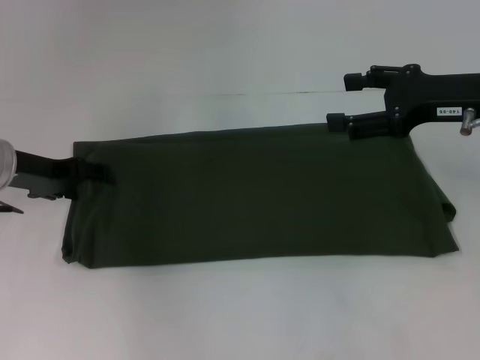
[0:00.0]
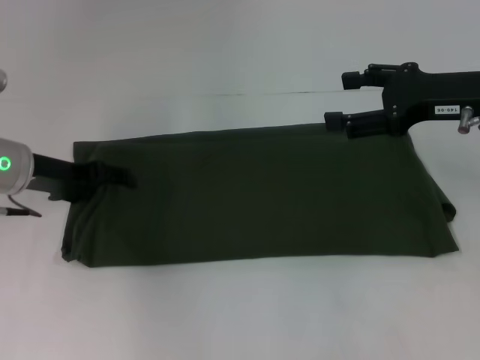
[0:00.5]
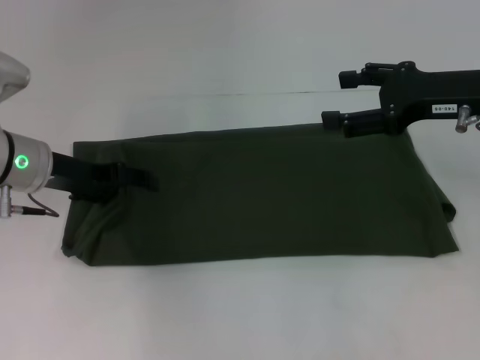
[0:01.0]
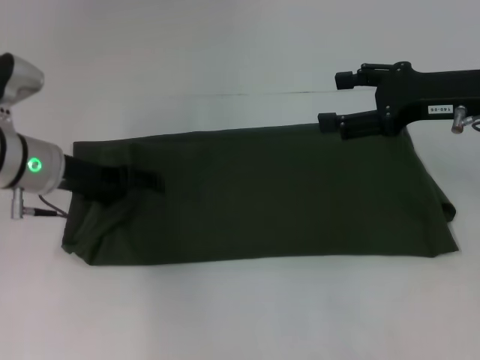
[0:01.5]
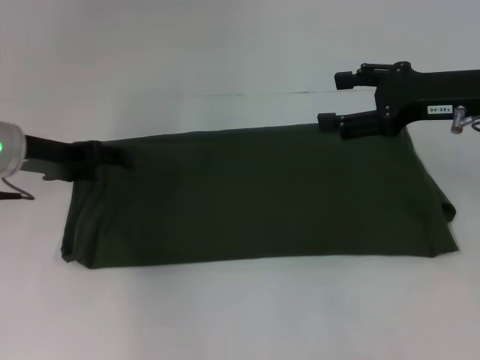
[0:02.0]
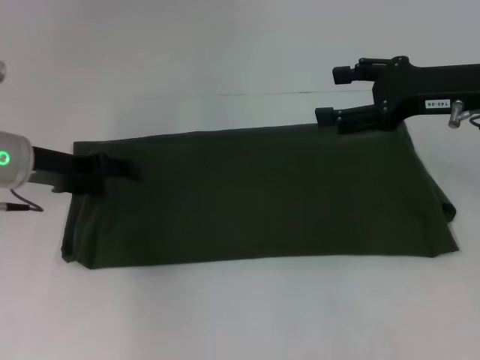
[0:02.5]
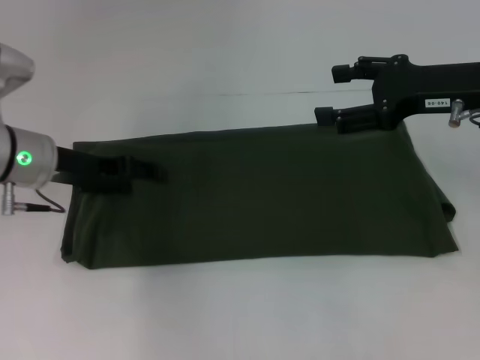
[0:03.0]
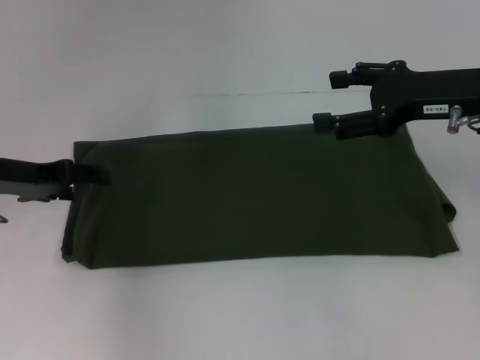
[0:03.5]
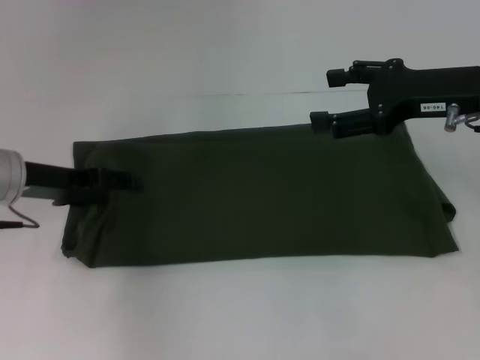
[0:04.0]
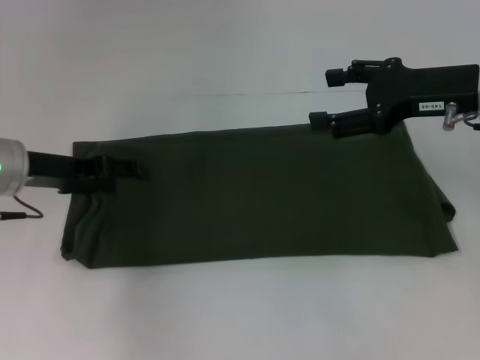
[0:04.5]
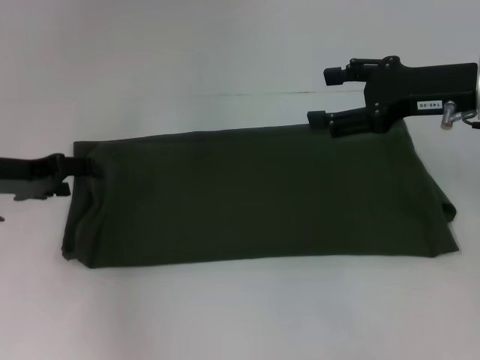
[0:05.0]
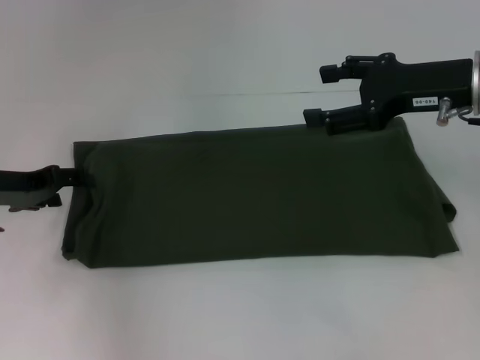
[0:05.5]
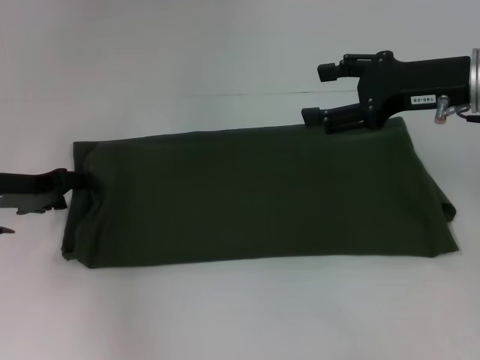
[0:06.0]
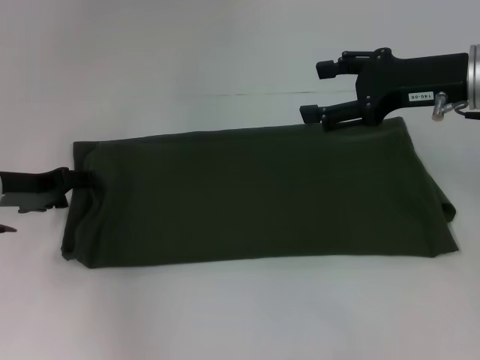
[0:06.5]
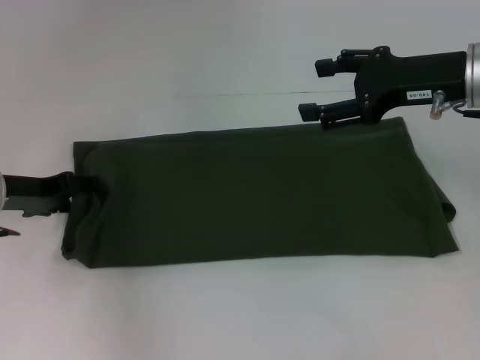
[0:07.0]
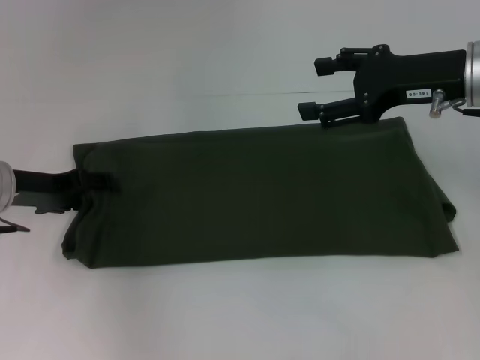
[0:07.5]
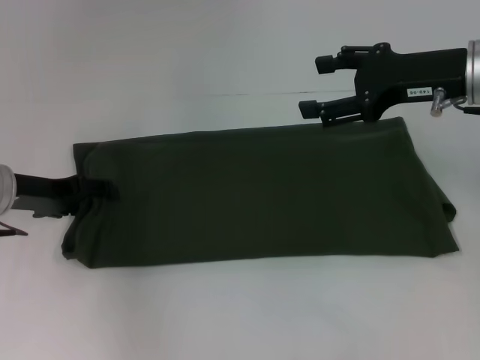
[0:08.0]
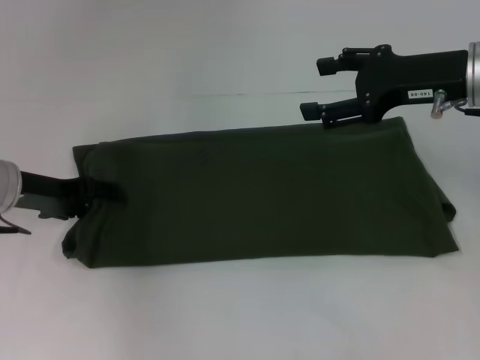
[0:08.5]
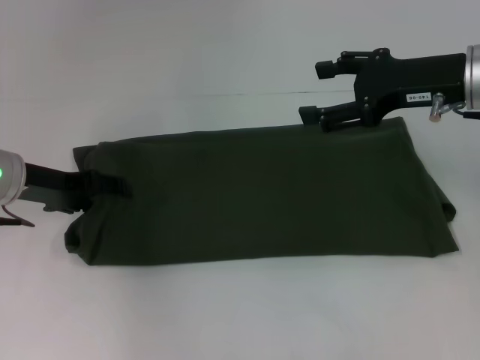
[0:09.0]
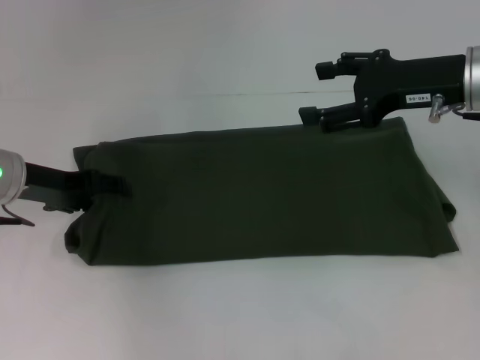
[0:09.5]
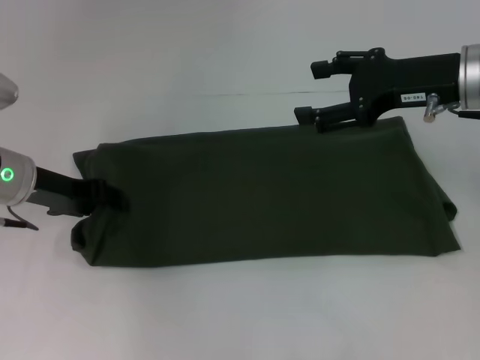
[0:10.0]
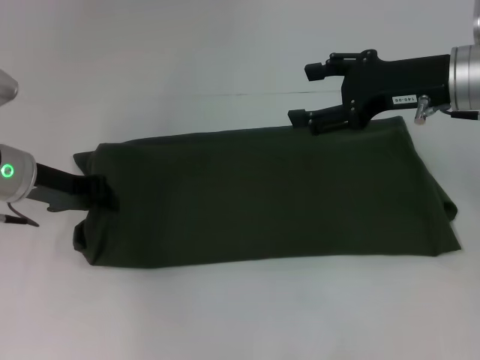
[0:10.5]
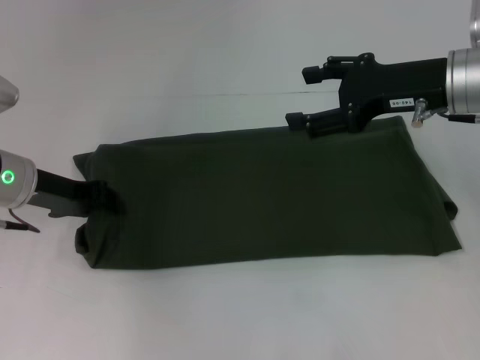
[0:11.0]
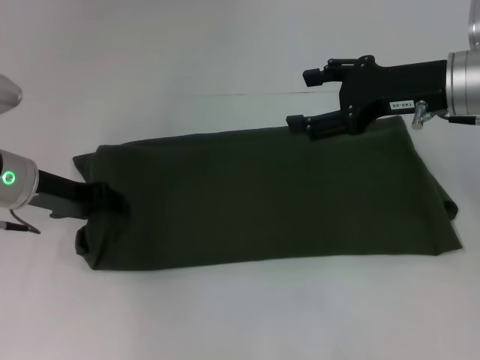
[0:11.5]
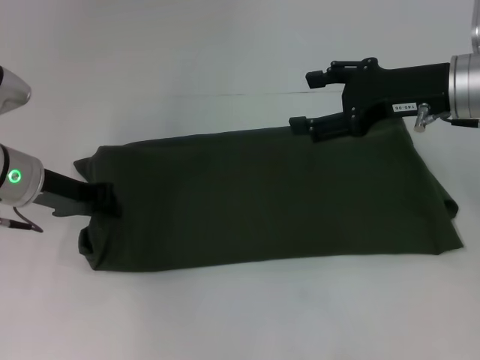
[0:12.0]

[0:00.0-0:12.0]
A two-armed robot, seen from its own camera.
0:00.0 to 0:10.0: The grippers make only small movements.
0:10.0 to 0:12.0: The left gripper closes up.

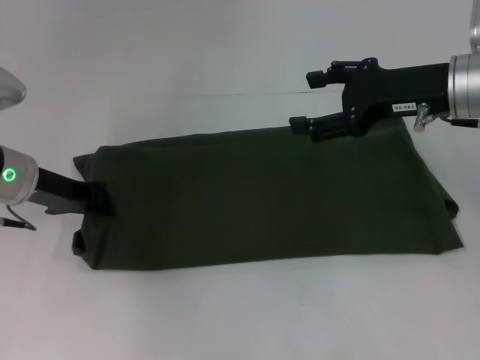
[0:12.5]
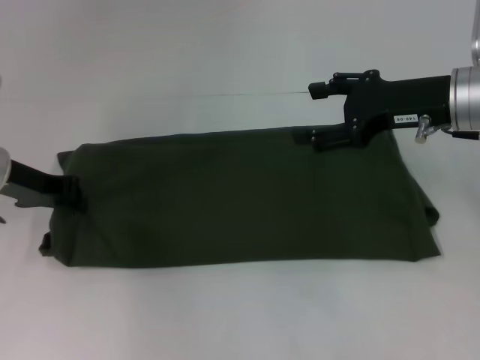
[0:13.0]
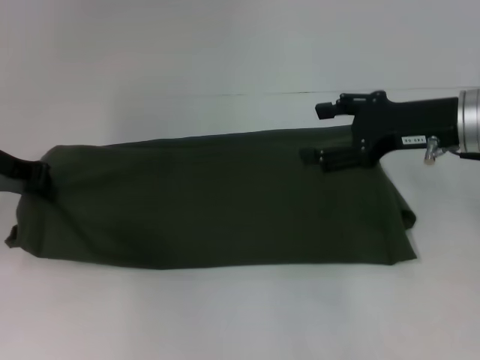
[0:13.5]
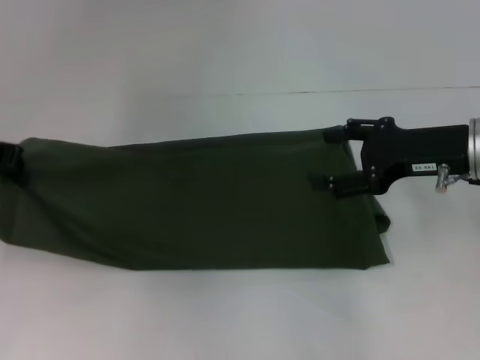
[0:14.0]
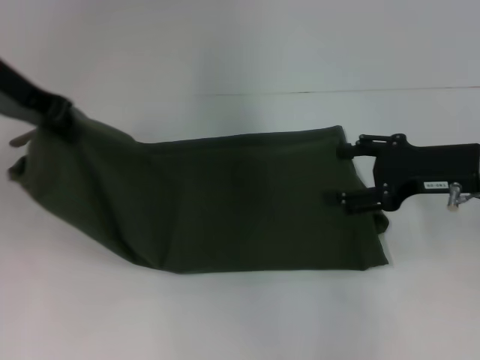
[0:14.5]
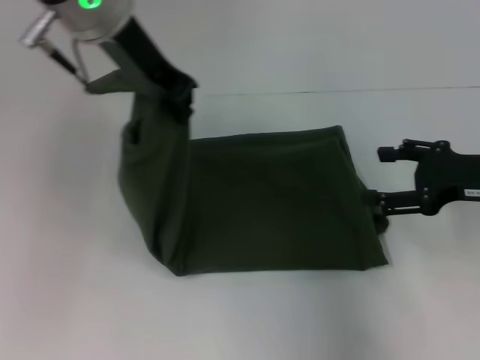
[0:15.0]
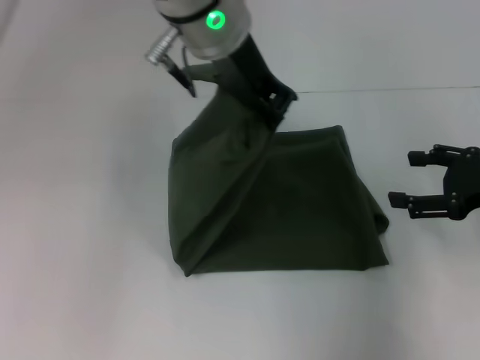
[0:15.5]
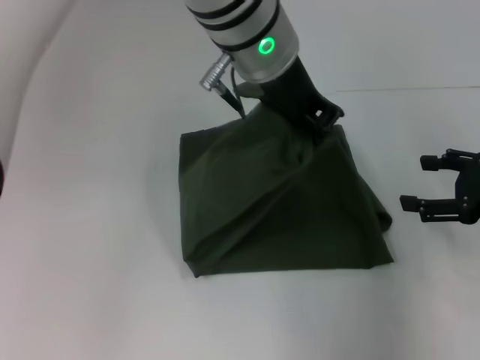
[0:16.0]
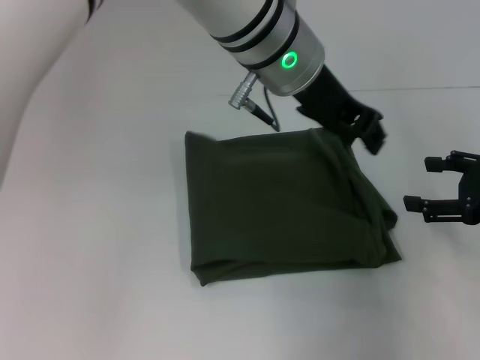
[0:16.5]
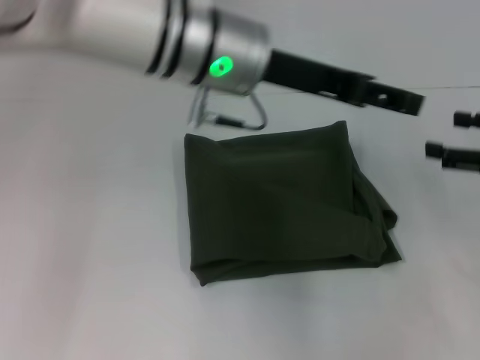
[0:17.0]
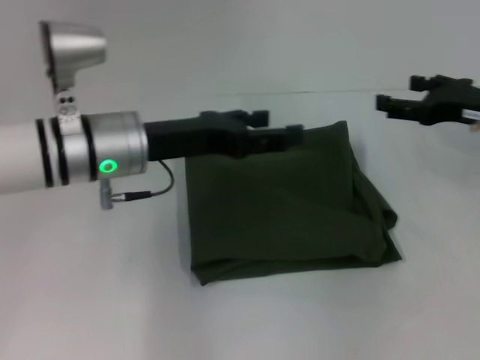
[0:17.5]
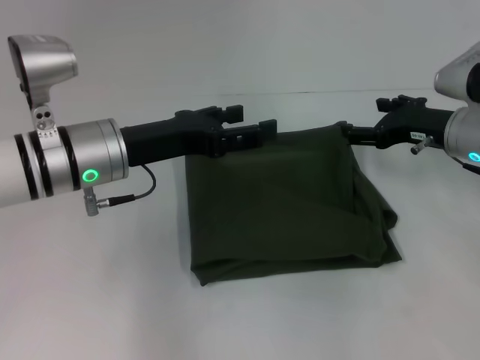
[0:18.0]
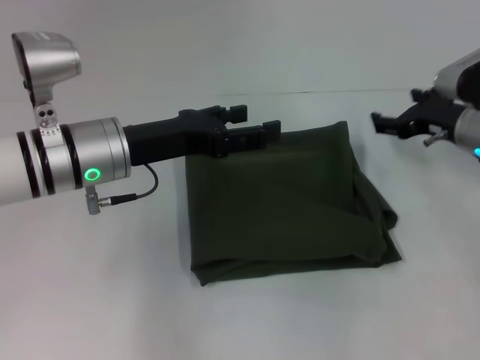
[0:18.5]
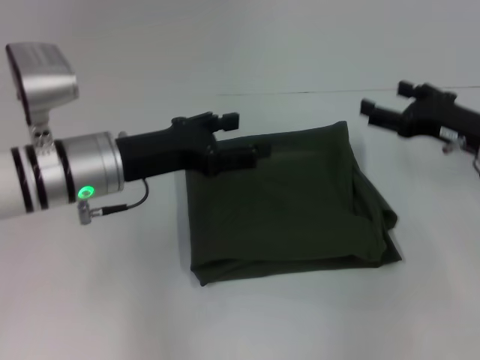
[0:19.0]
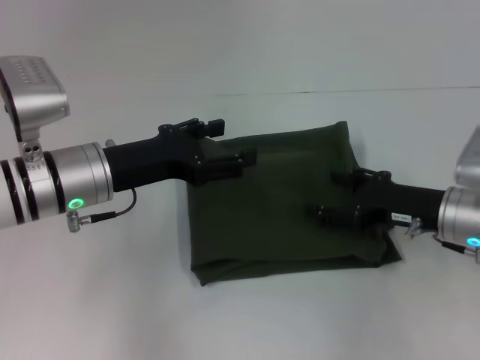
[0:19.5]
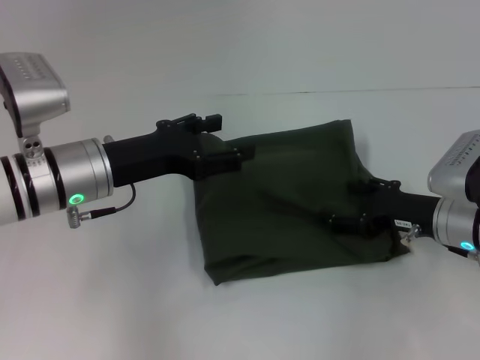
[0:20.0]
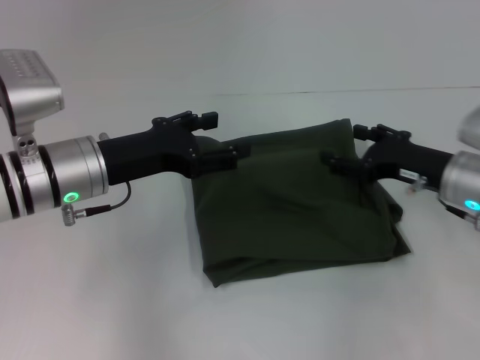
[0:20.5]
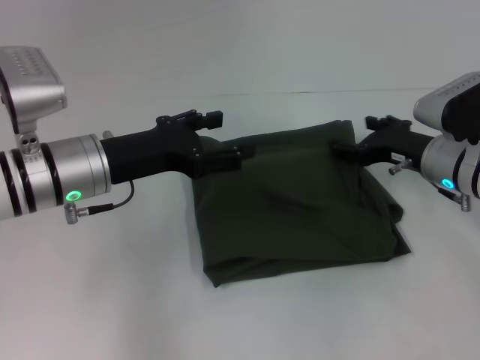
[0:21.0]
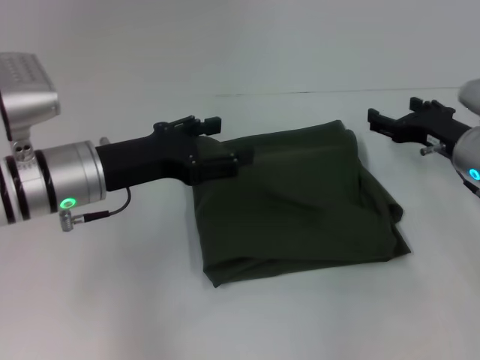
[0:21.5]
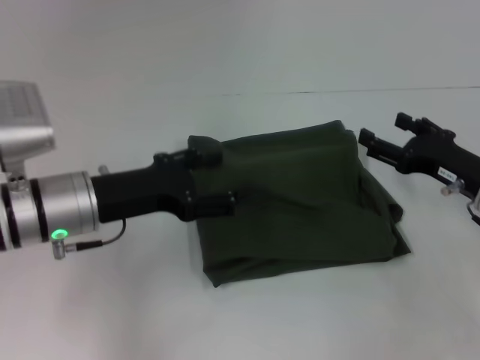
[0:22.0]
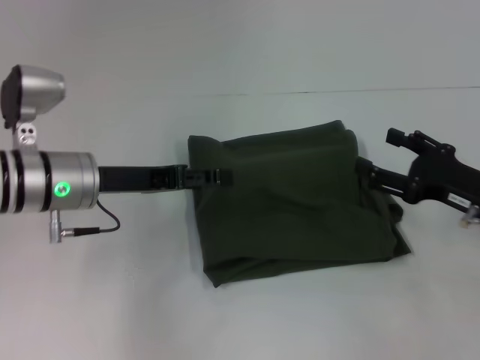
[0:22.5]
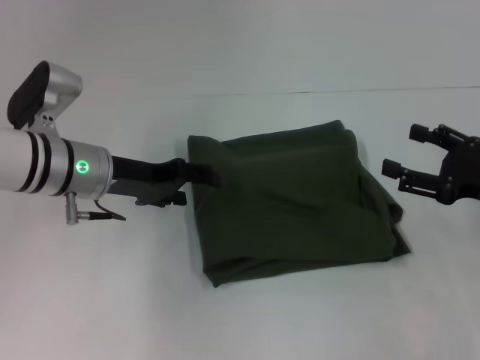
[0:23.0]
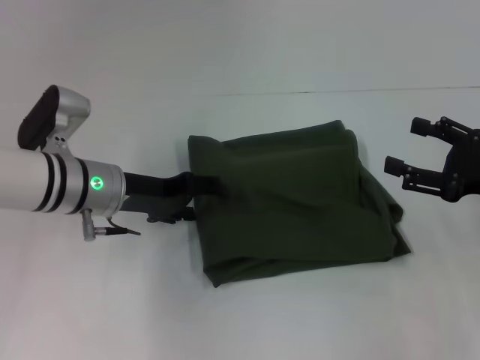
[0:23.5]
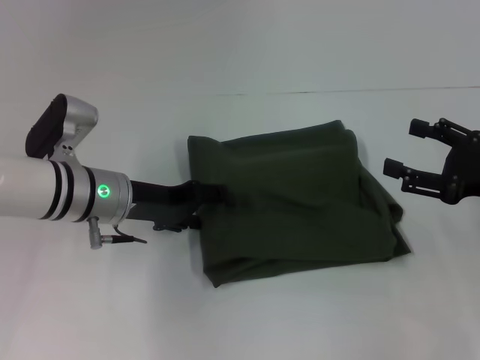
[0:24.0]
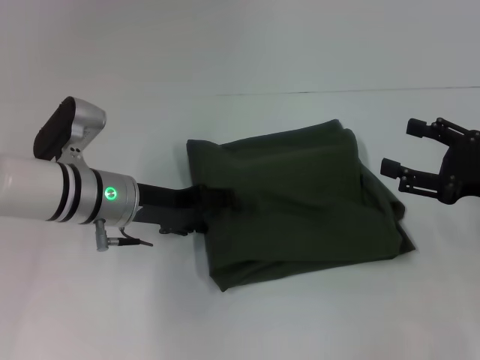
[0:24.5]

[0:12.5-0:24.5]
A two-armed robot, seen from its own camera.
Step, 0:12.5 to 0:16.5: Fold the clothes with your left hand.
0:12.5 to 0:14.5: The right gripper moves downward, some 5 cm; the left gripper is displaced upward by roughly 15 cm.
0:14.5 to 0:16.5: The left gripper goes approximately 25 cm to the right, while the right gripper travels to the right by some 10 cm.
0:16.5 to 0:18.5: The left gripper heads to the left and downward, covering some 20 cm, and opens up, while the right gripper goes some 10 cm forward and to the left.
0:18.5 to 0:20.5: The right gripper moves backward, roughly 5 cm.
0:20.5 to 0:22.5: The right gripper goes about 5 cm backward.

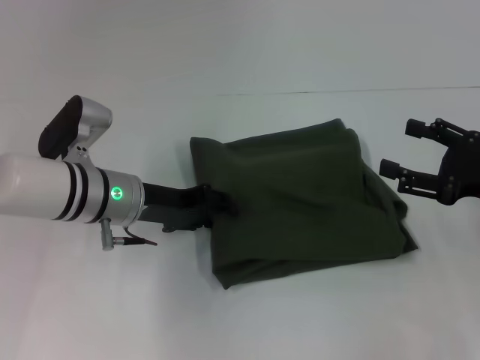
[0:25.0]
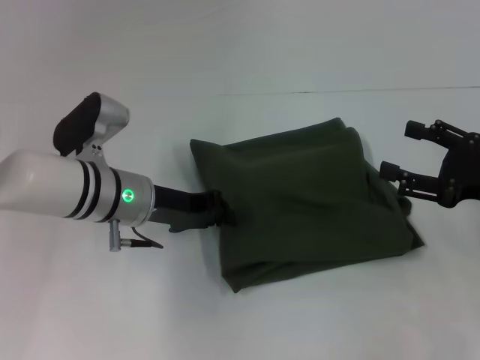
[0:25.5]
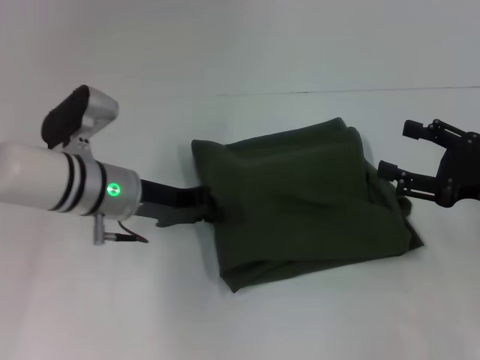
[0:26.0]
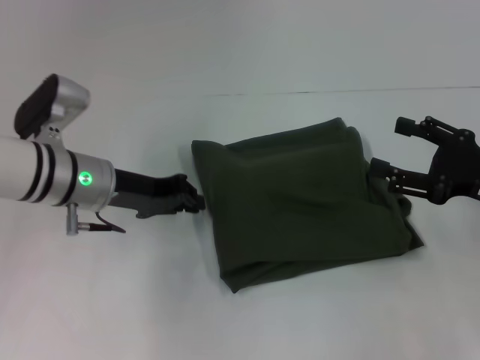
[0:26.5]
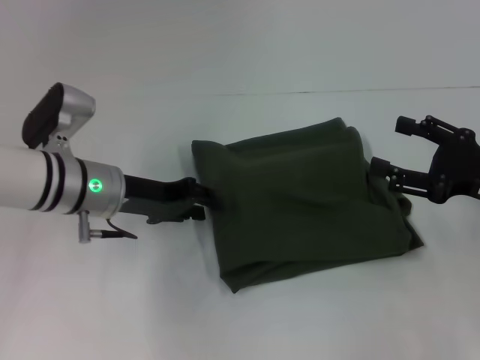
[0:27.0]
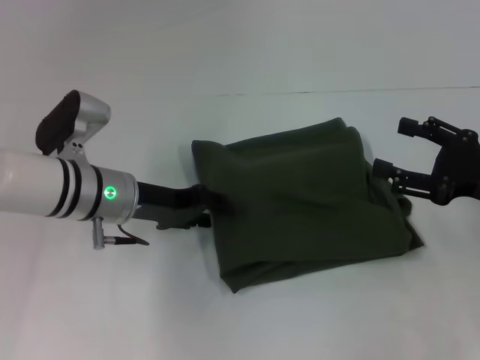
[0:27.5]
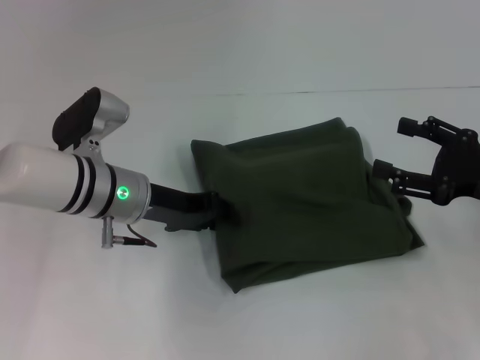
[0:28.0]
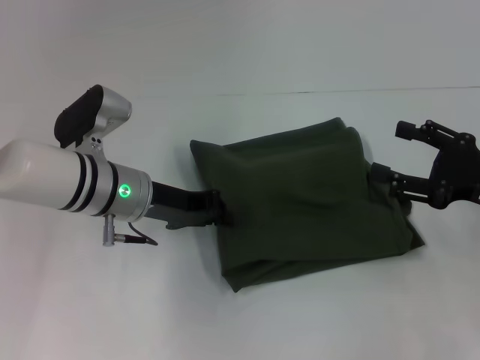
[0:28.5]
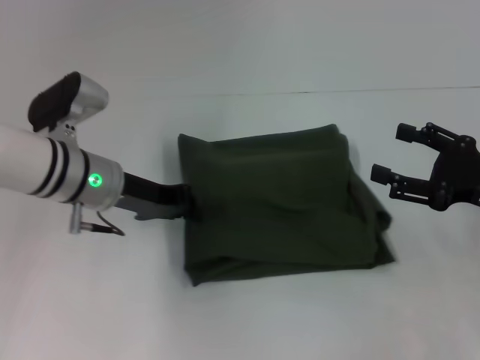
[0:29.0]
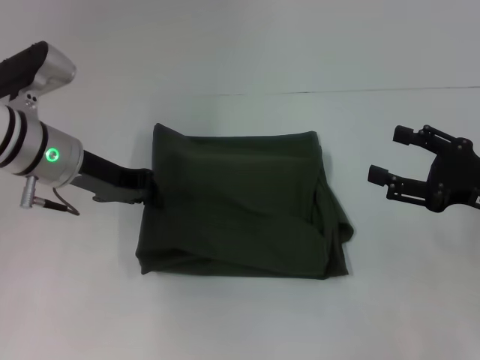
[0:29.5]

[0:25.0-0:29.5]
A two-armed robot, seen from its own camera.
0:25.0 to 0:27.0: The left gripper closes up.
0:27.0 to 0:29.5: The left gripper ends up approximately 5 cm from where it was.
